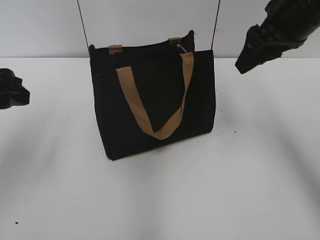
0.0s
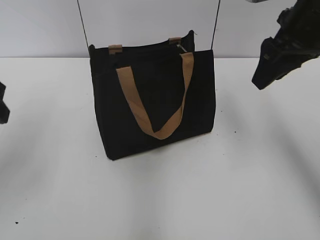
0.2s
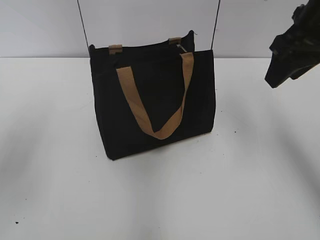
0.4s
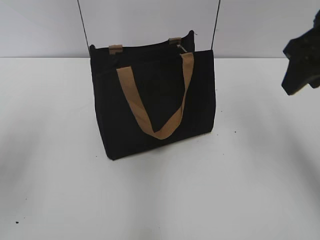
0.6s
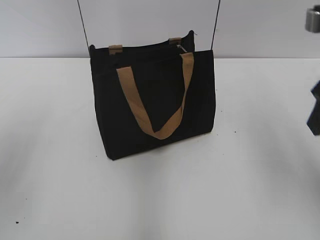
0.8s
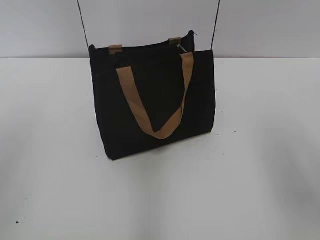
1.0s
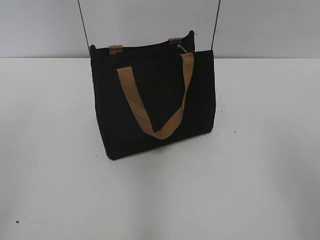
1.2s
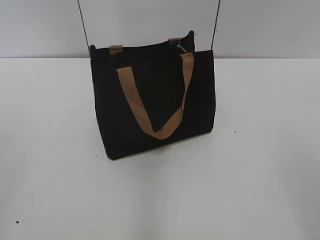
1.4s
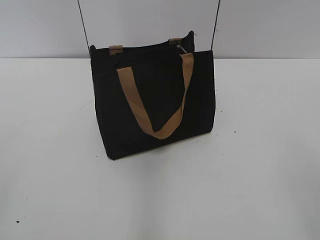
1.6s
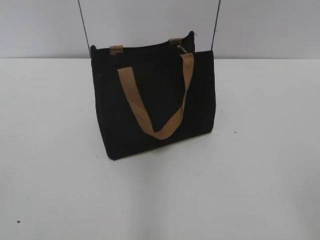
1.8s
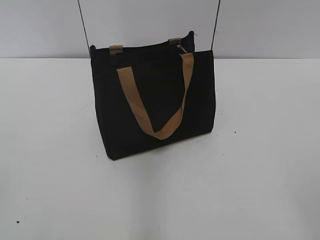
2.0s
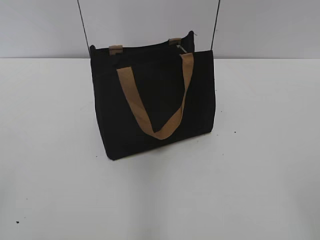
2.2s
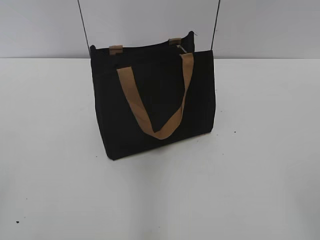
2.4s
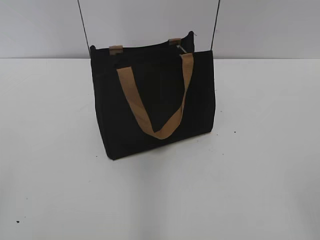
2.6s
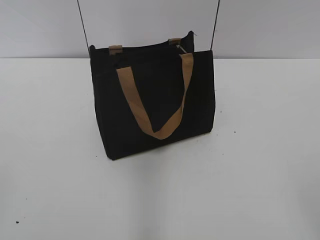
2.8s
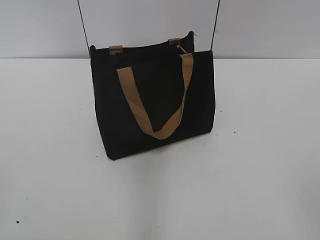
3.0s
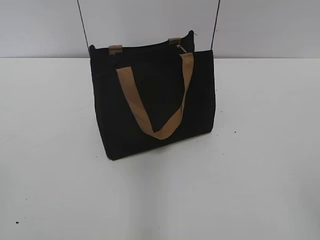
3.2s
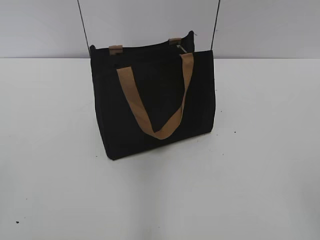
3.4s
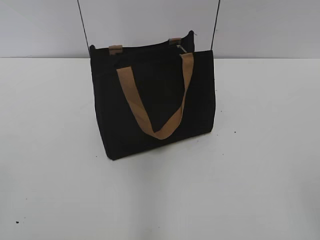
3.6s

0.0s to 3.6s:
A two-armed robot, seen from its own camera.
0.0s to 1.8s: Both grippers travel together backward, about 30 cm.

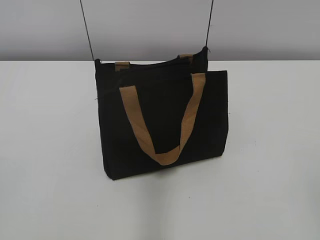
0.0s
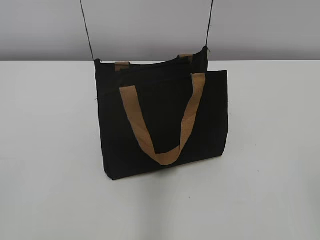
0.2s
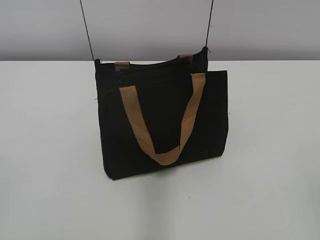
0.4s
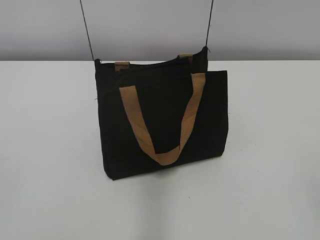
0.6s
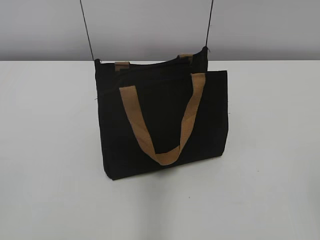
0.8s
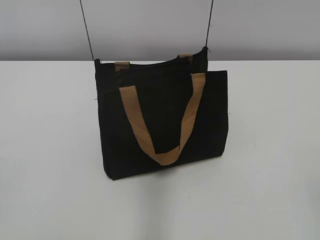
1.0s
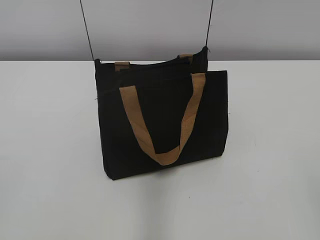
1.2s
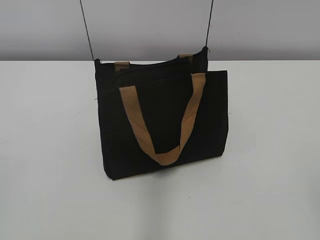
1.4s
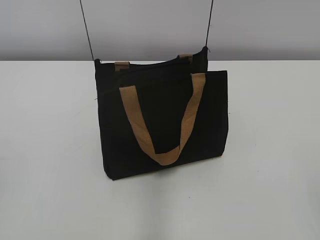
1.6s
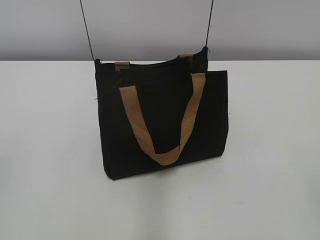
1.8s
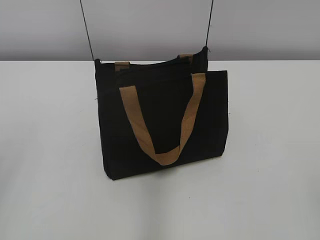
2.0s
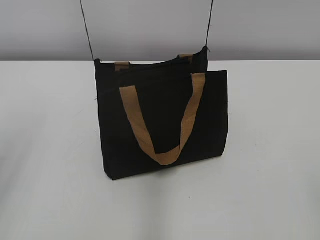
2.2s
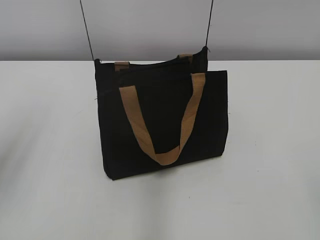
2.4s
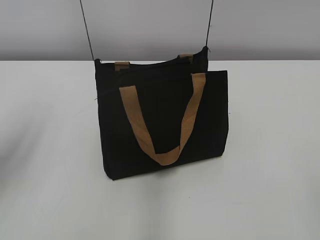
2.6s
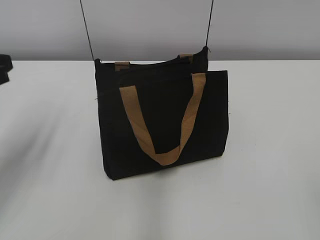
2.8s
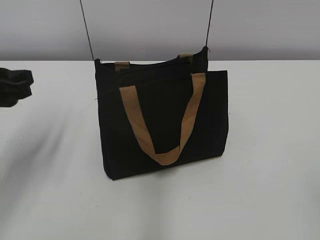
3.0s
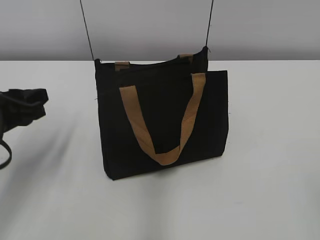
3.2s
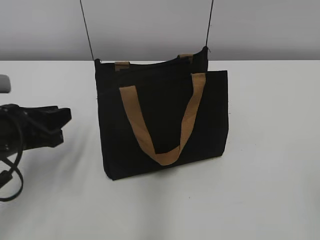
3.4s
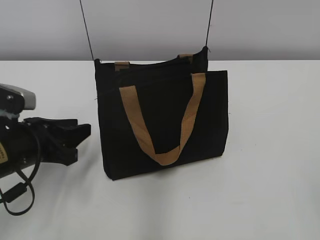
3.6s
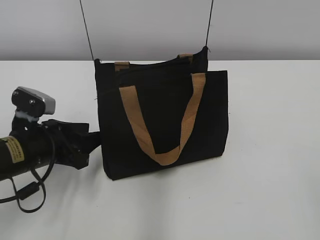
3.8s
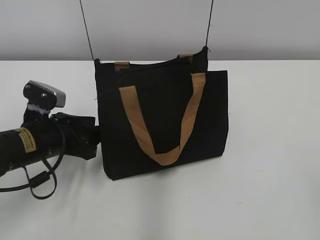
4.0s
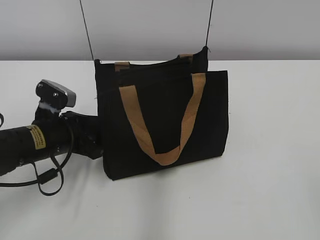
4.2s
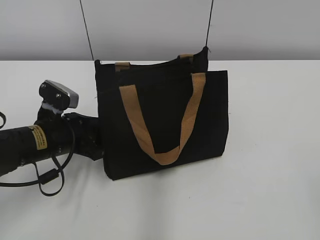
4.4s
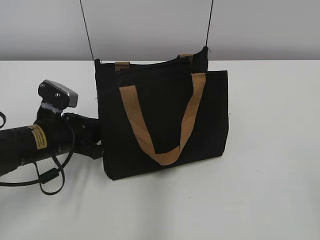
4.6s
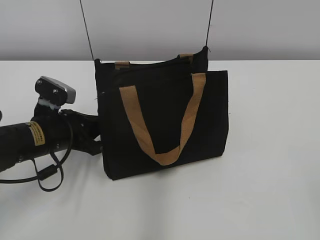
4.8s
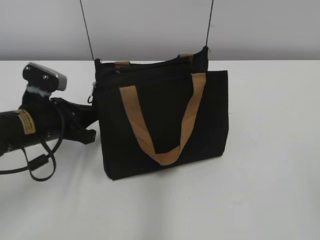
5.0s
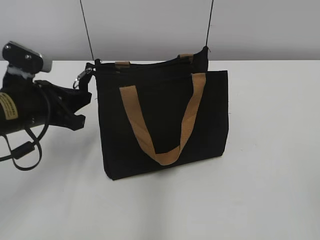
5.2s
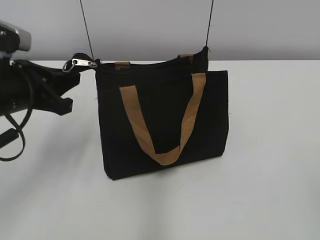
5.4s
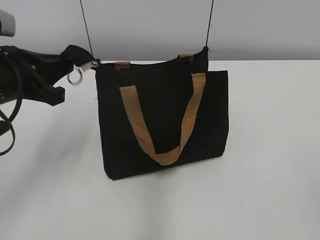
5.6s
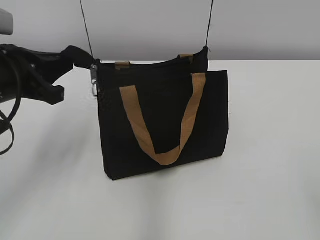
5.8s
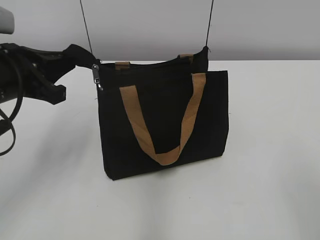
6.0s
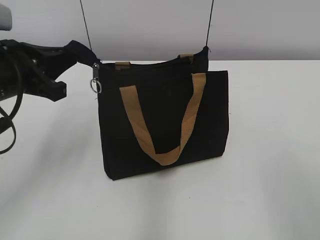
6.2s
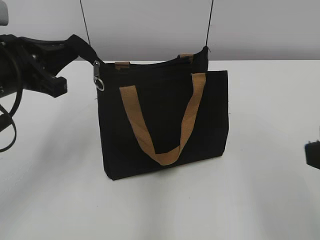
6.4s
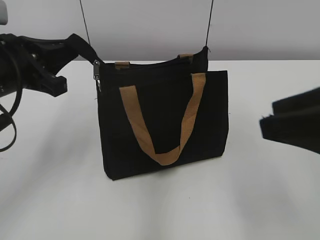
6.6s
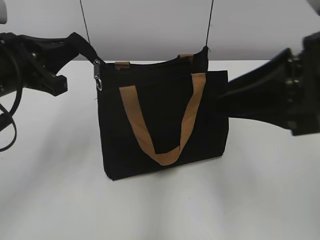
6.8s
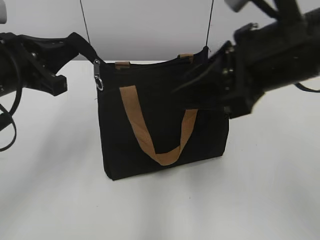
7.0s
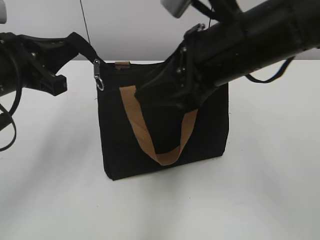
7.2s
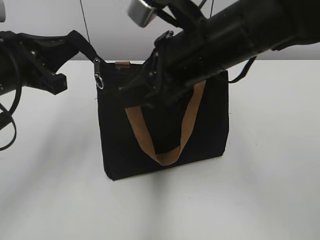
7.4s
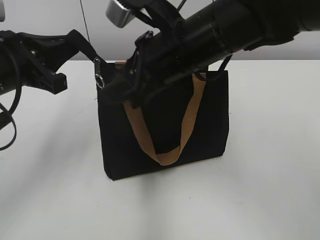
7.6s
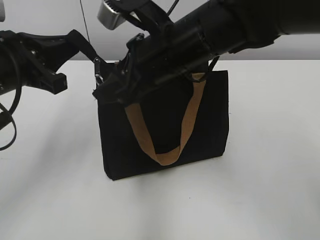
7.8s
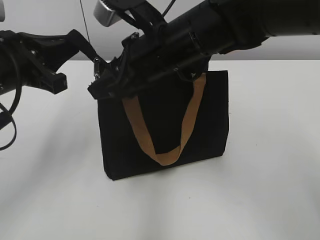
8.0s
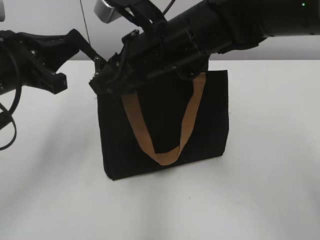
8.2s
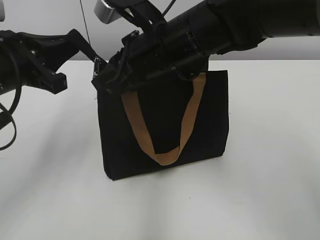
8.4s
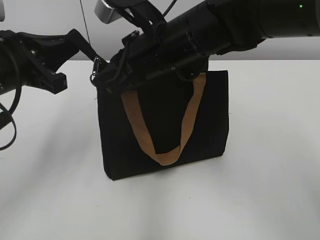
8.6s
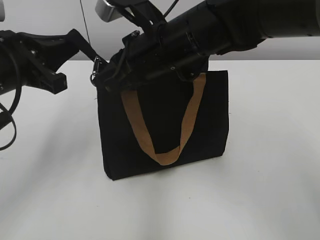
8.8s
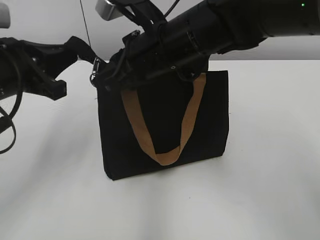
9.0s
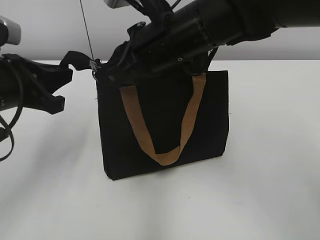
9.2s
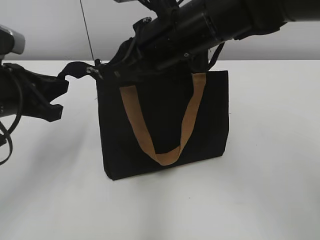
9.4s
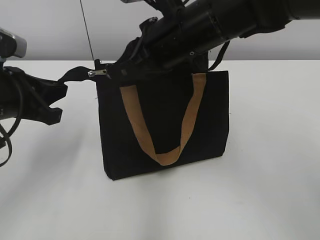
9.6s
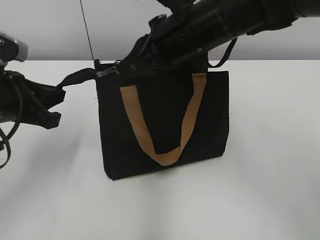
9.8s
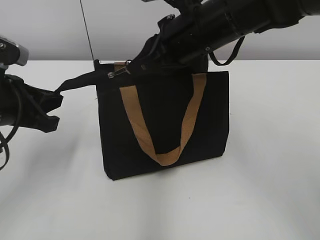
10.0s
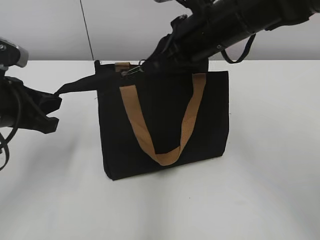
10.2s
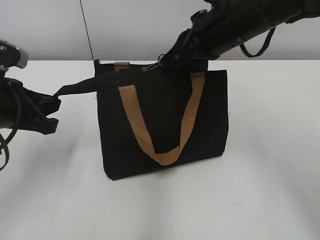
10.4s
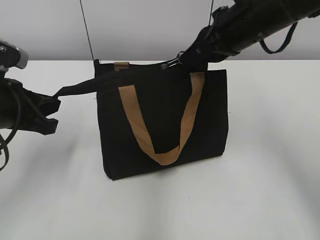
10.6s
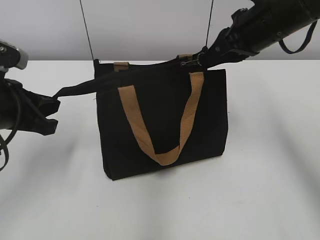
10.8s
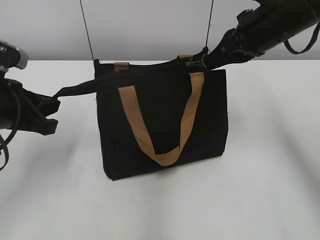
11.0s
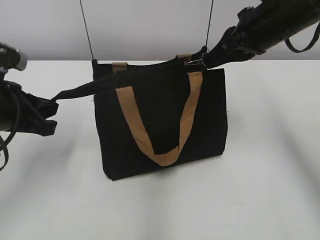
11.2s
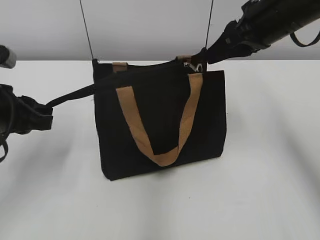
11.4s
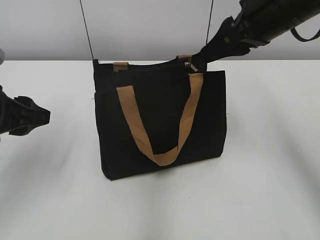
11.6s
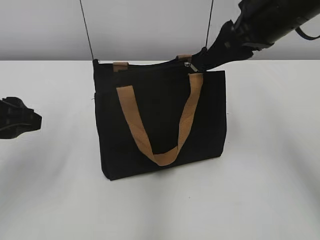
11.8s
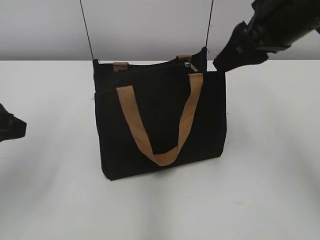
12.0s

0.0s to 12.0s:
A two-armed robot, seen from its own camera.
Step, 0.0s to 11.2s: Zip up the bag with your right hand.
Step, 11.4s to 11.6s: Grab the zipper with your left hand.
1.6s to 3.0s: The left gripper heads forward, covering roughly 20 cm.
3.0s to 4.4s: The left gripper goes some 15 cm downward and to the right, and opens up.
4.4s to 6.0s: The left gripper heads upward, covering about 15 cm, and closes.
6.0s to 7.6s: The right gripper moves forward and to the left, some 35 cm.
7.6s to 9.0s: The right gripper closes its fingers.
9.0s to 10.4s: The right gripper travels to the right by about 10 cm.
10.4s to 12.0s: The right gripper heads to the right, covering about 5 cm, and opens. The left gripper shifts by approximately 5 cm, and opens its fingers.

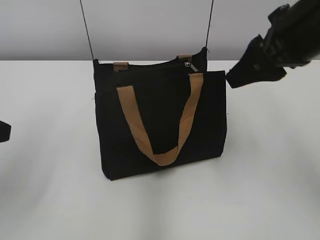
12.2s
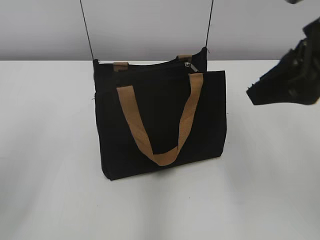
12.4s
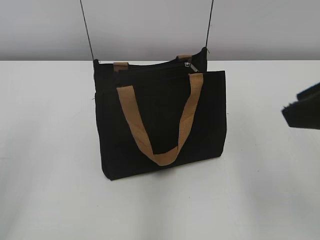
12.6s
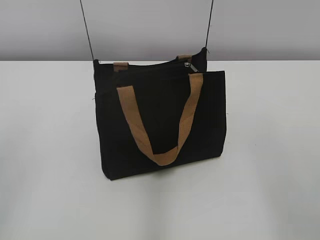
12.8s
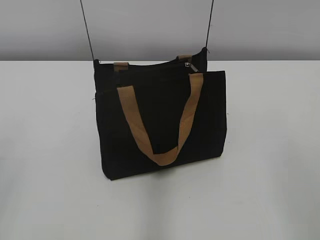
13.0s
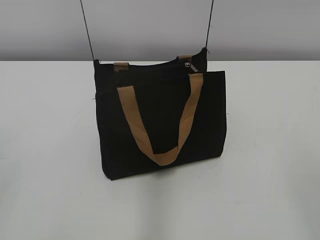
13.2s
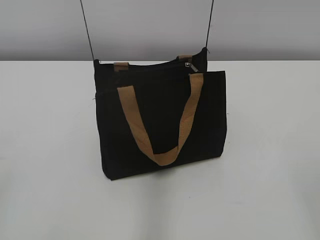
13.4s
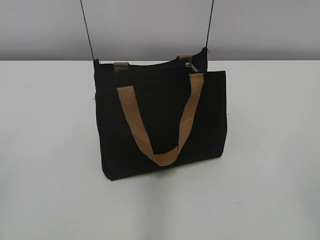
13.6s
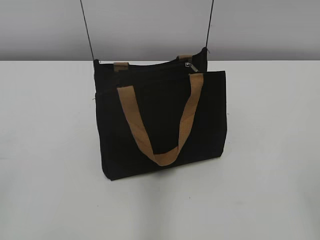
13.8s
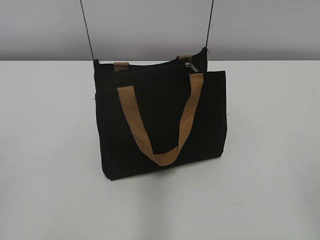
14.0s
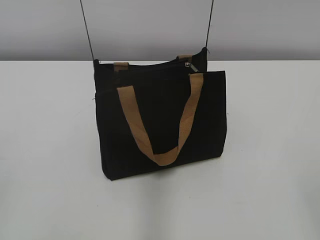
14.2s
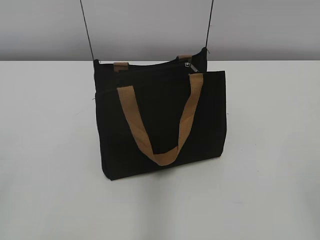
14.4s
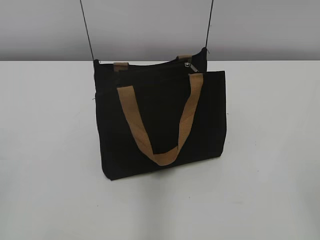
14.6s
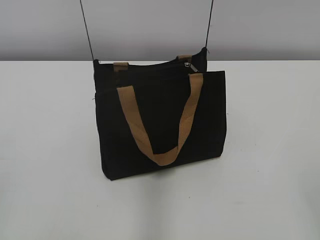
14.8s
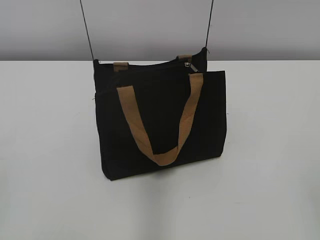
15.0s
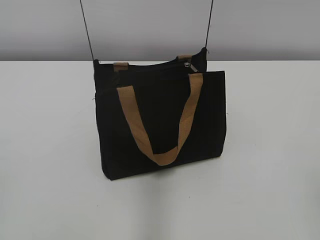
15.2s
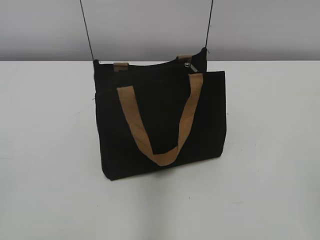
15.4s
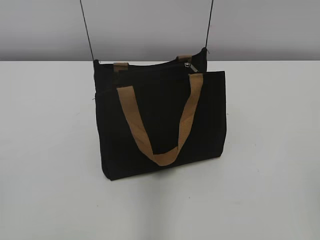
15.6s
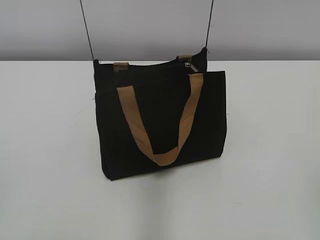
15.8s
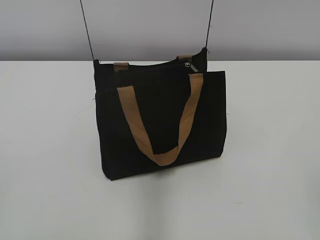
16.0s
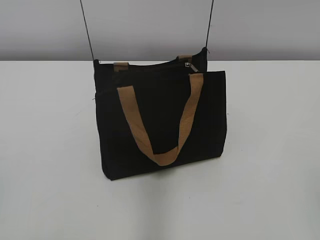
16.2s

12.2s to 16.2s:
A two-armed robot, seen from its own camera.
12.2s to 13.6s: The right gripper is displaced backward by some 30 cm.
13.6s to 14.8s: Both grippers stay put.

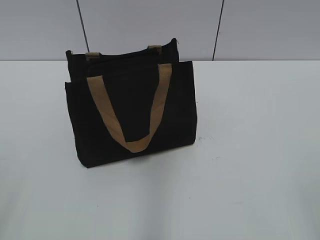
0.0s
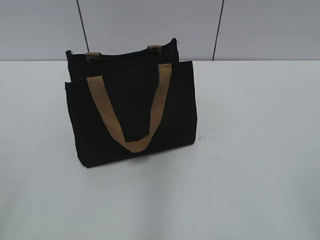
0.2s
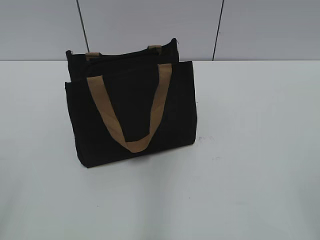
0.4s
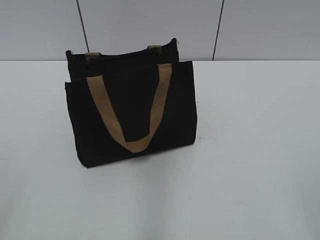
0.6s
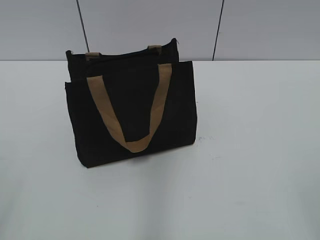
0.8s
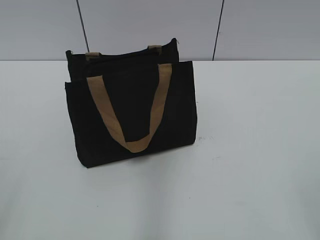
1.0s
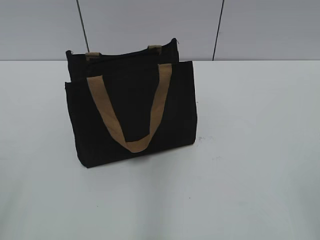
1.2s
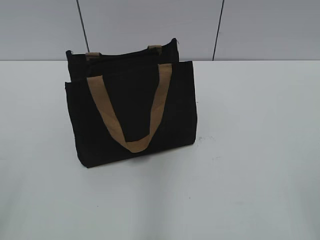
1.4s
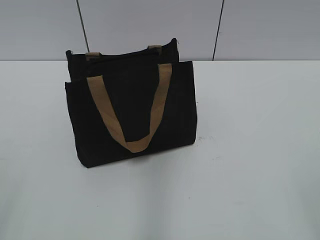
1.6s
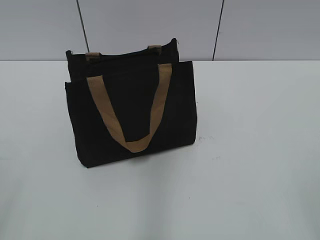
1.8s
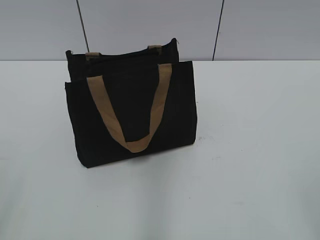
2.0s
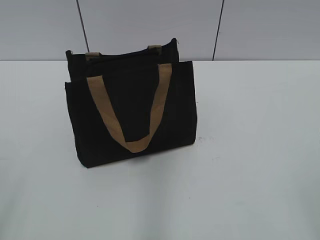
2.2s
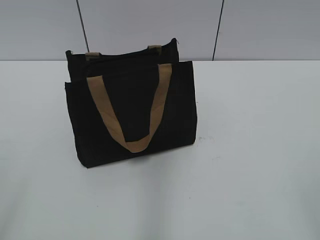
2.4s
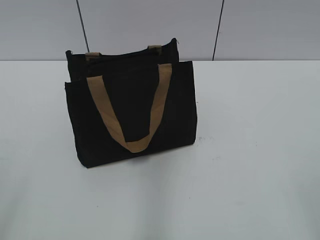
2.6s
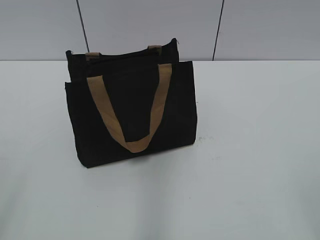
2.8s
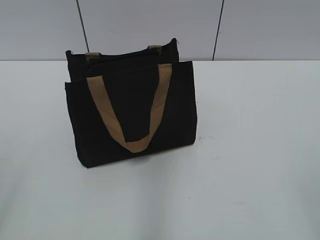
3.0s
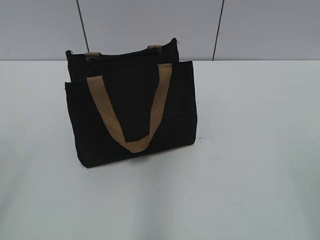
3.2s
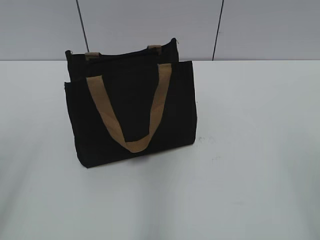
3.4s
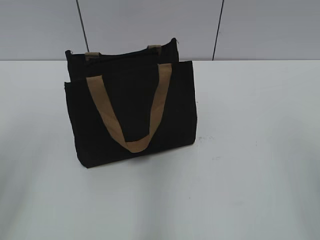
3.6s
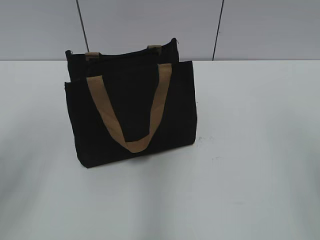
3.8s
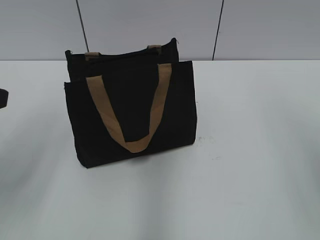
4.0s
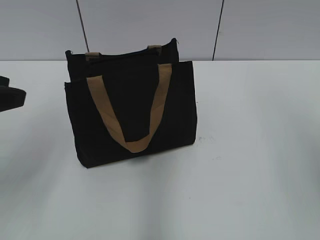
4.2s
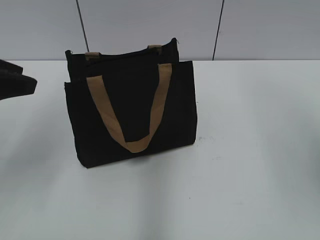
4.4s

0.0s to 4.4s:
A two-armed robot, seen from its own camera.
3.0s to 4.4s: The left gripper moves forward, about 20 cm.
